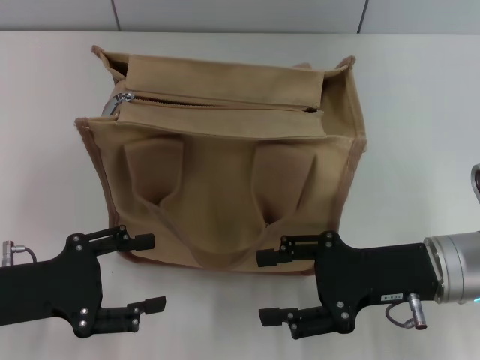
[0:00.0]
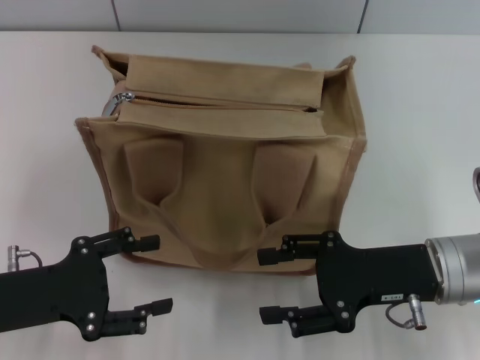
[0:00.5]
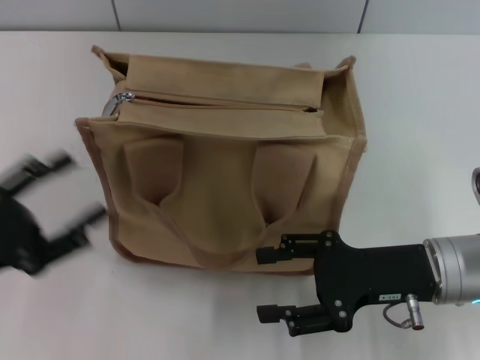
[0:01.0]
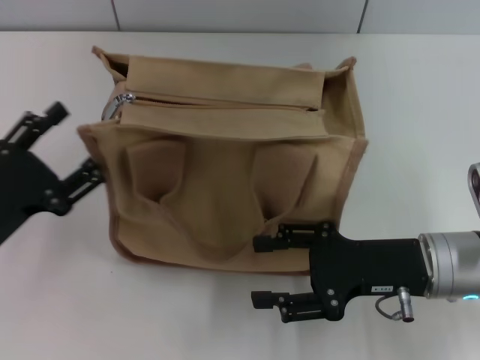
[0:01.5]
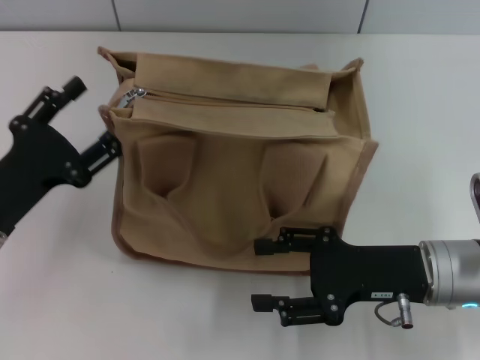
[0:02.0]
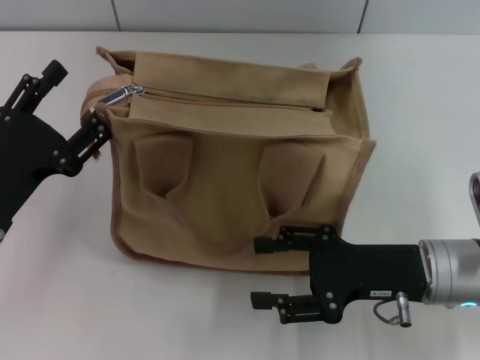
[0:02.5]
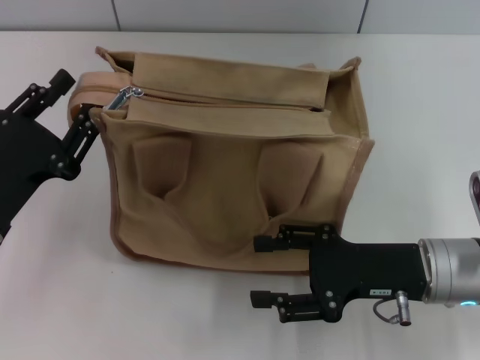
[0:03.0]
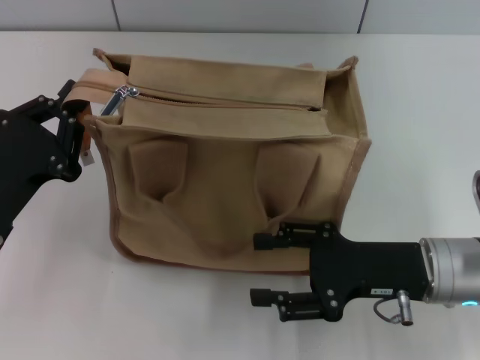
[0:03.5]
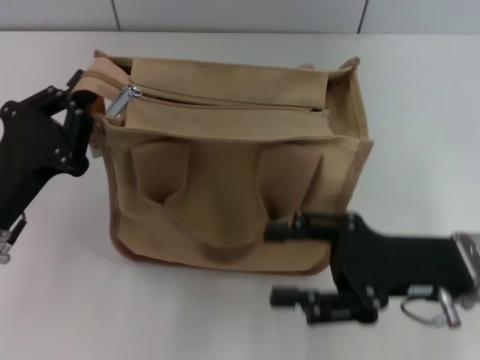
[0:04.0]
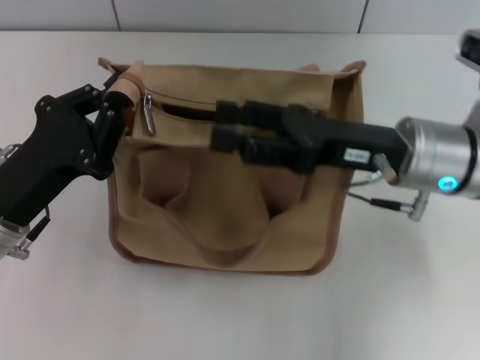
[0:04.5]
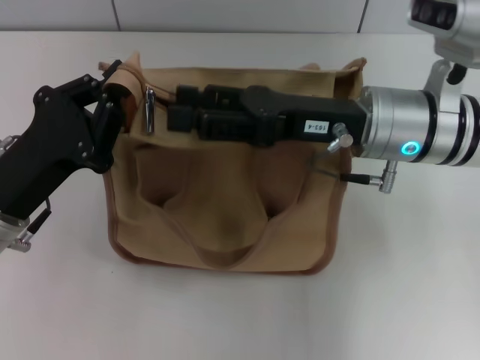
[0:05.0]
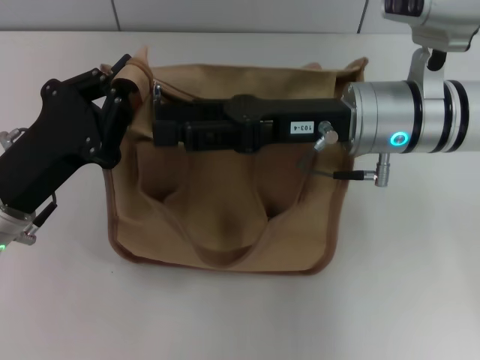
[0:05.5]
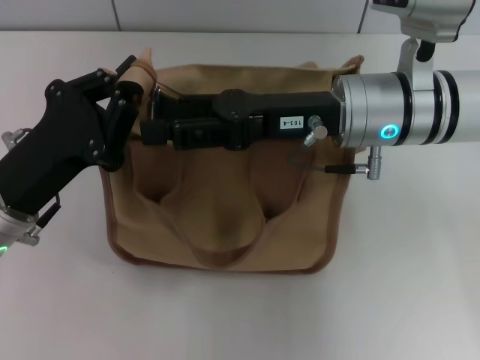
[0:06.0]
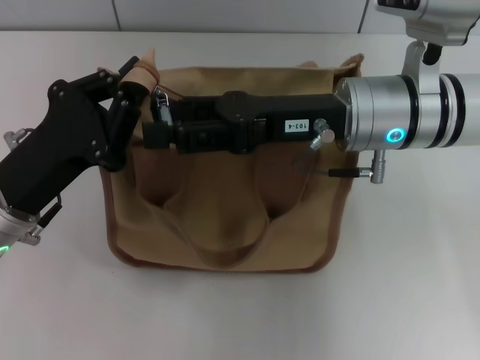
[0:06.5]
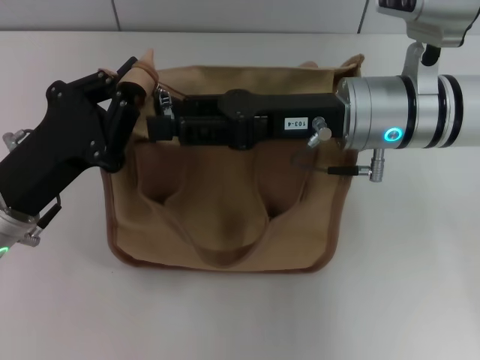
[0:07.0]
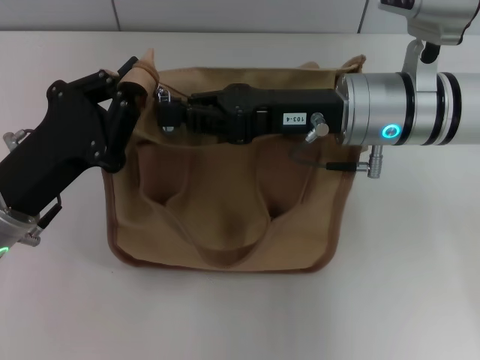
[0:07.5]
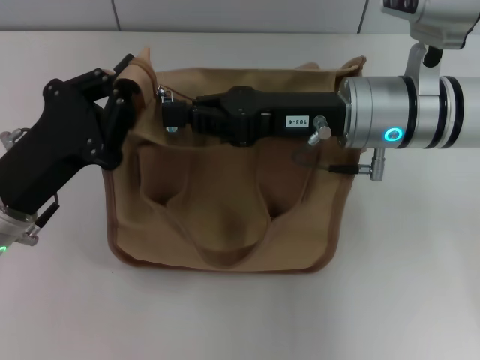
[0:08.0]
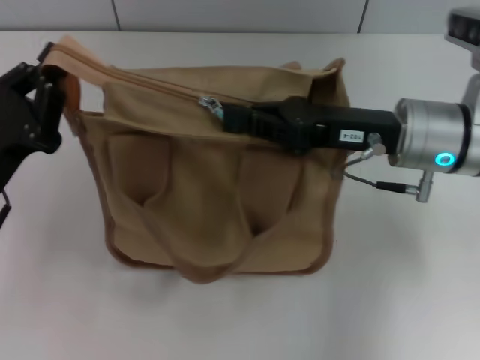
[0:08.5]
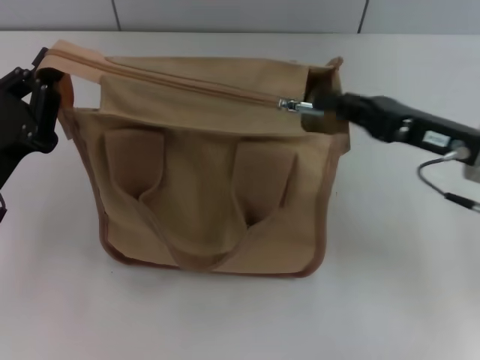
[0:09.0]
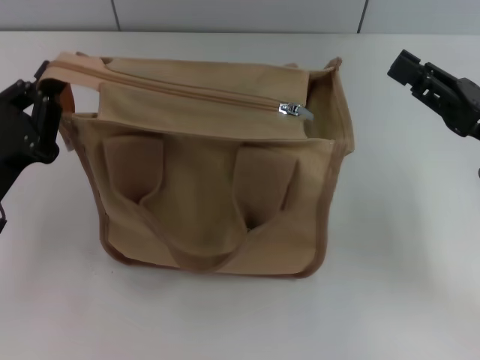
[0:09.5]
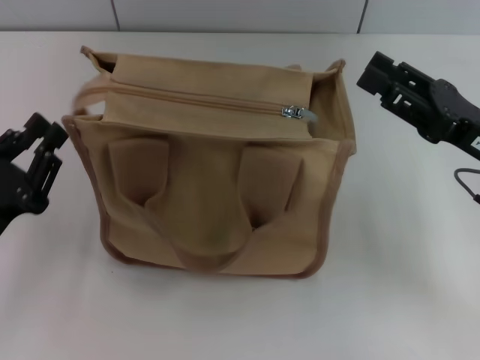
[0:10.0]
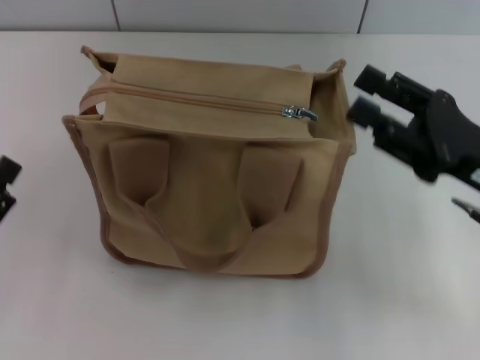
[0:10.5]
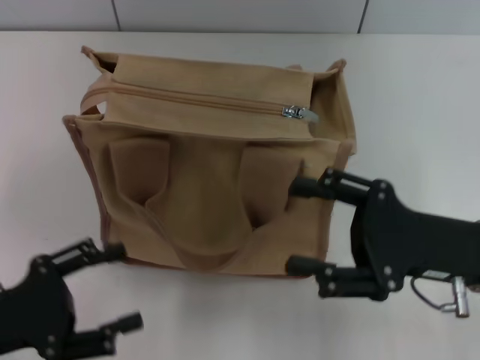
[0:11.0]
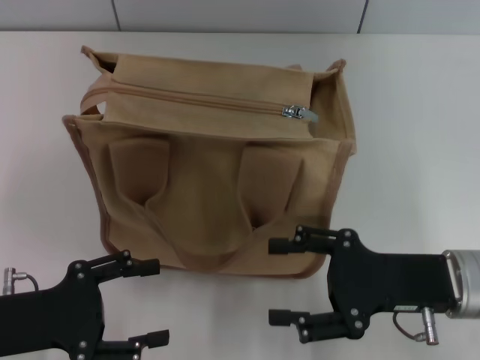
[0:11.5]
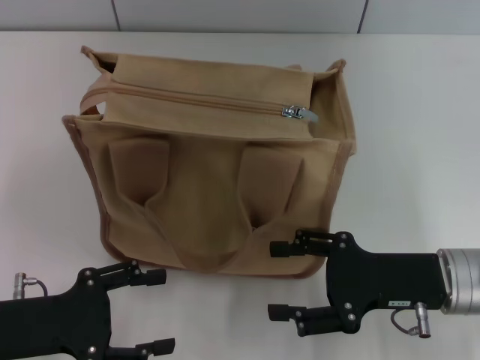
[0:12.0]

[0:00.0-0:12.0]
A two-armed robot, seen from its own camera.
Step, 0:00.0 to 0:08.5: Pull up the zipper with your right hand.
0:02.0 to 0:04.0: The left gripper closes its fingers.
0:04.0 to 0:06.0: The right gripper is displaced forward, to the left and upward by about 15 cm.
0:06.0 to 0:08.0: The right gripper closes up.
0:08.0 to 0:10.0: The left gripper travels to the left by some 5 cm. The right gripper heads to the right and backward, covering roughly 15 cm, and opens up.
0:10.0 to 0:12.0: The right gripper shifts by about 10 cm. Meanwhile the left gripper opens its fingers.

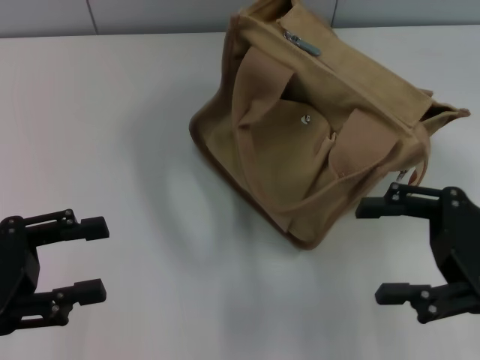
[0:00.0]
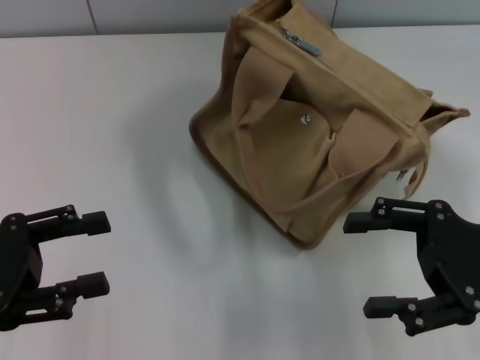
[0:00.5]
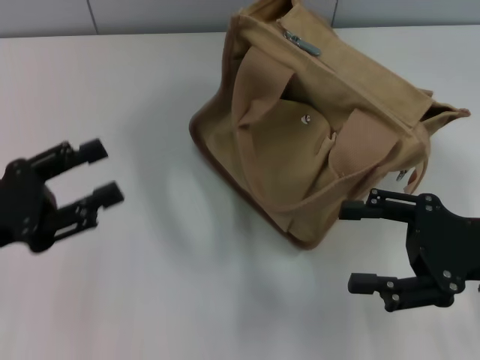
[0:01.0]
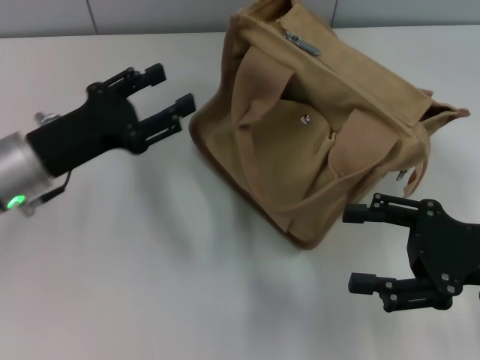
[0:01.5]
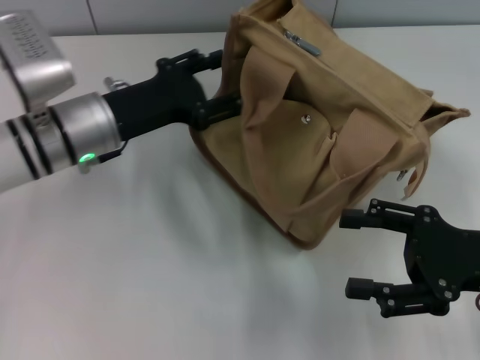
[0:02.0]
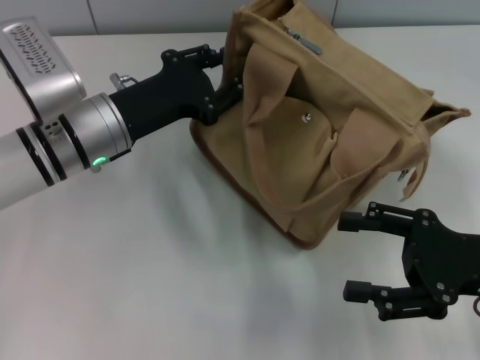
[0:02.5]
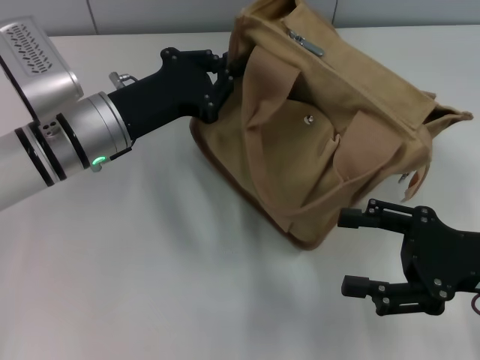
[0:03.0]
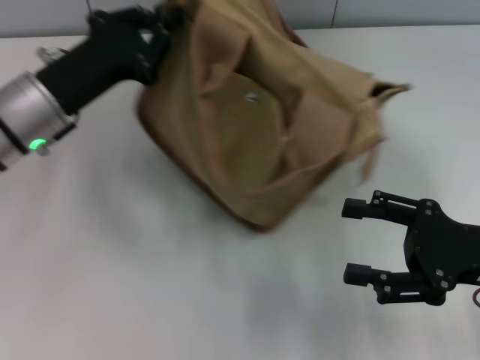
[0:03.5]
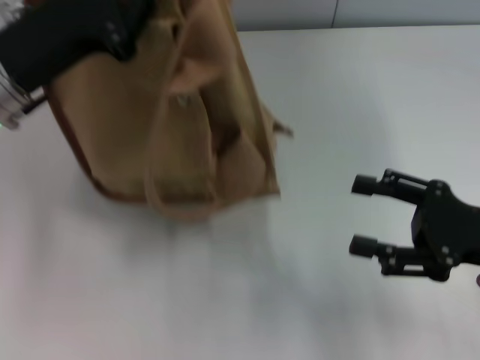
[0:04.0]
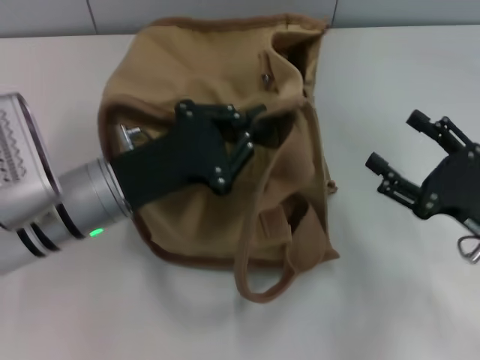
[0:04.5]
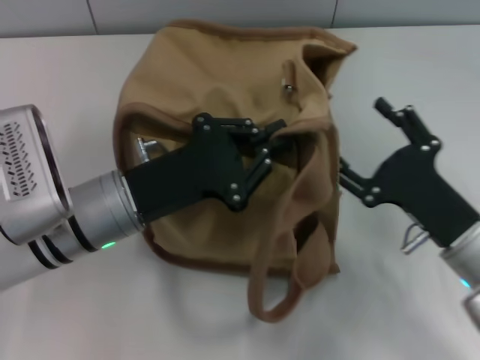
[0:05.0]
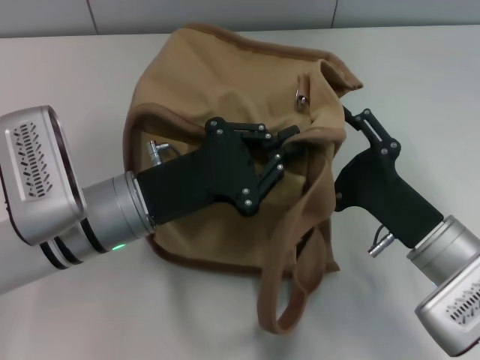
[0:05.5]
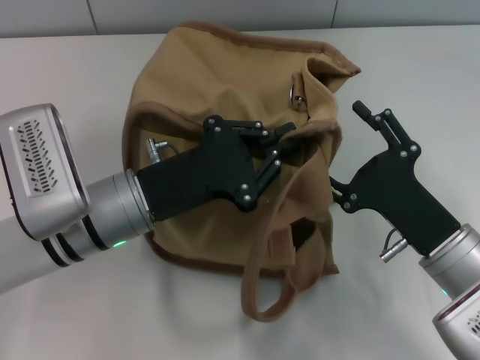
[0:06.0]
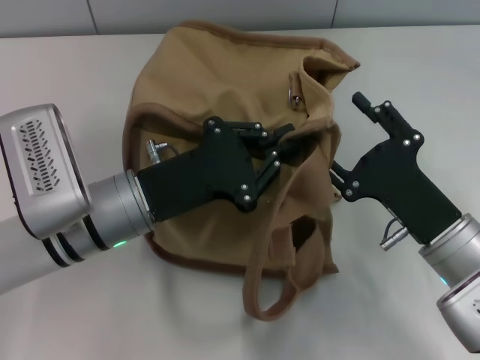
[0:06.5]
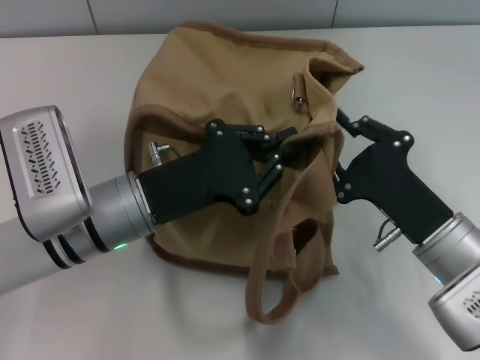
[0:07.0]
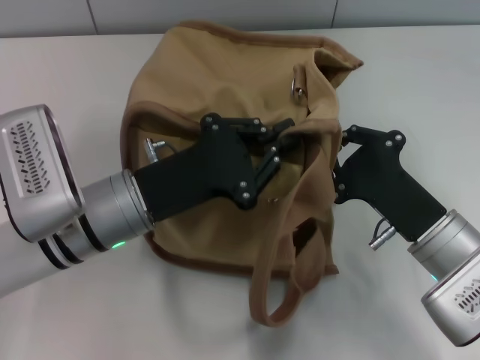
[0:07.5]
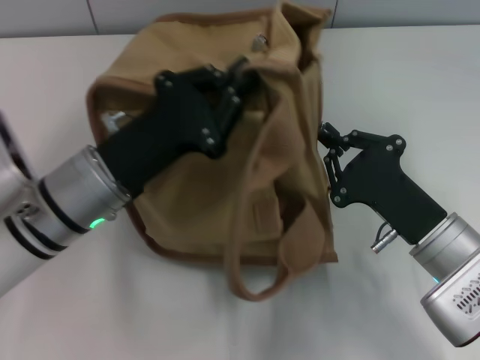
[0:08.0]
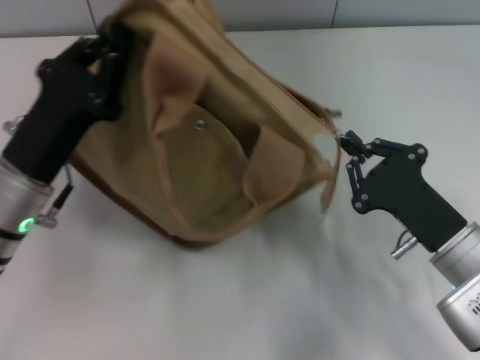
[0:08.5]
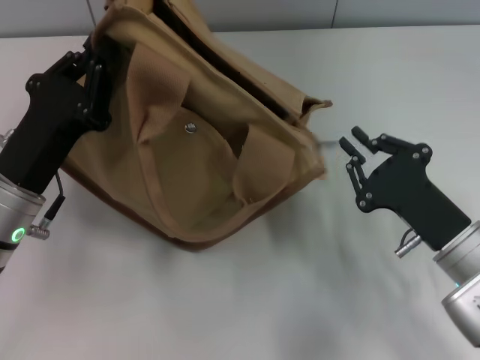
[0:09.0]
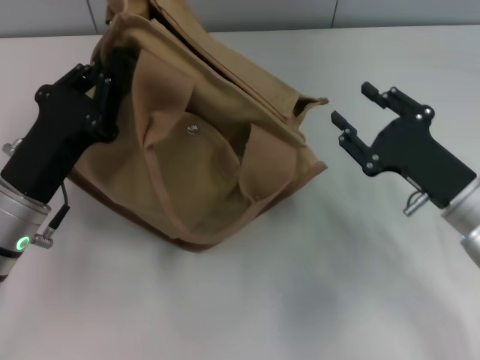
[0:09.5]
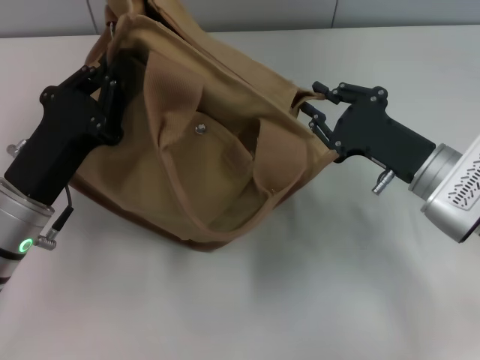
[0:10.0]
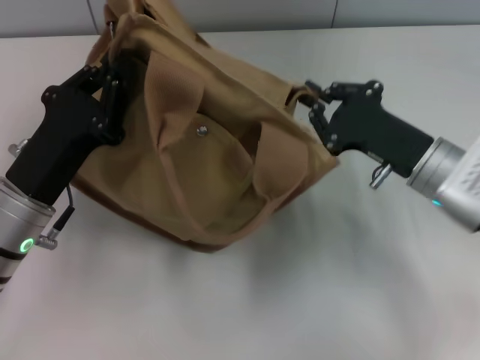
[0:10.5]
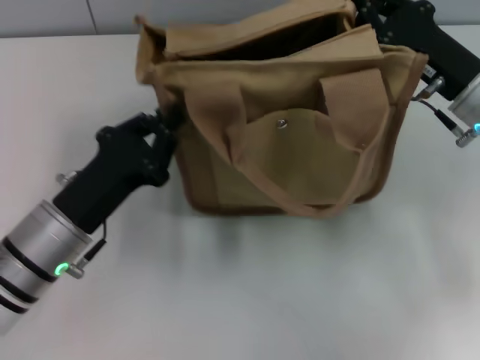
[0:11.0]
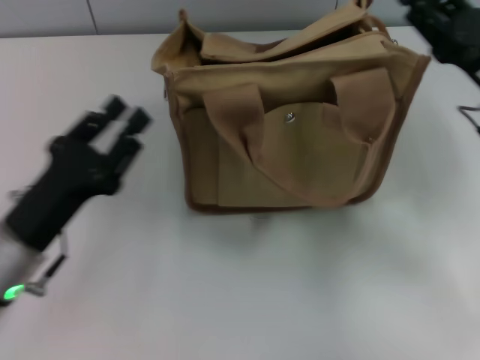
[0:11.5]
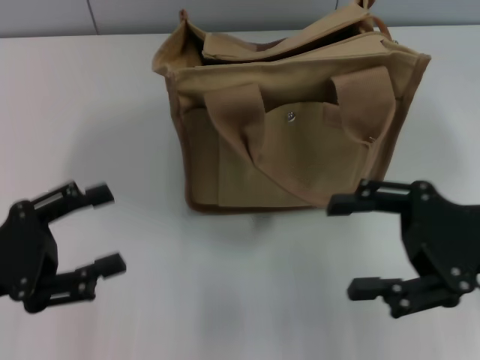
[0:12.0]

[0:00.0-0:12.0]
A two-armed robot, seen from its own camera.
Step, 0:00.0 to 0:09.0: Pull open the zipper with your right hand.
Step, 0:09.5 to 0:11.0: Grab the bag with your left hand.
0:00.0 to 0:02.0: The left gripper goes roughly 20 cm forward and to the right.
0:02.0 to 0:04.0: The left gripper heads upward, covering roughly 5 cm, and closes up.
0:04.0 to 0:06.0: The left gripper moves downward and to the right, about 10 cm; the right gripper travels to the left and downward by roughly 10 cm.
0:06.0 to 0:08.0: The right gripper closes its fingers.
0:08.0 to 0:10.0: The left gripper heads to the left, covering some 5 cm. The right gripper shifts some 5 cm forward, and opens up.
0:10.0 to 0:12.0: The right gripper is displaced upward and backward by some 10 cm, and opens its fingers. Meanwhile the left gripper travels to the left by some 10 cm, and opens.
